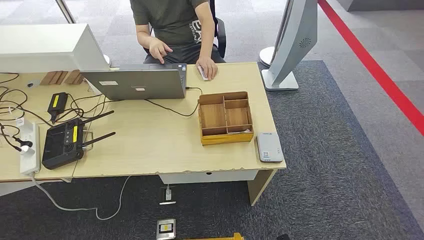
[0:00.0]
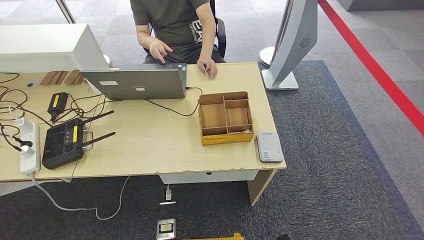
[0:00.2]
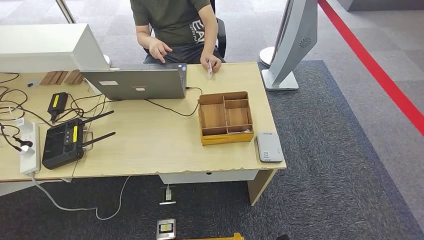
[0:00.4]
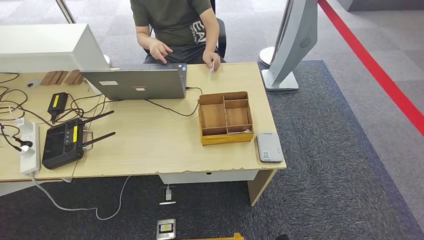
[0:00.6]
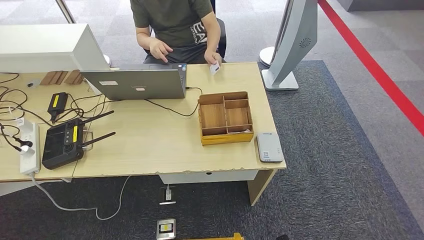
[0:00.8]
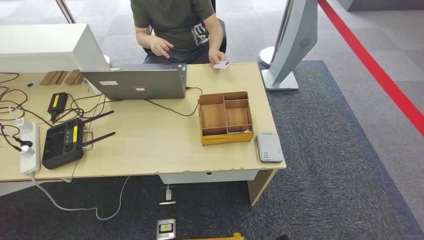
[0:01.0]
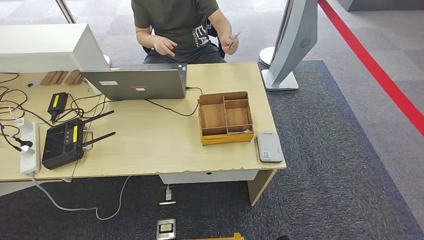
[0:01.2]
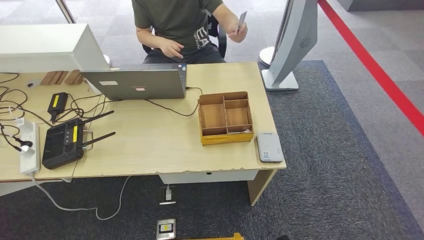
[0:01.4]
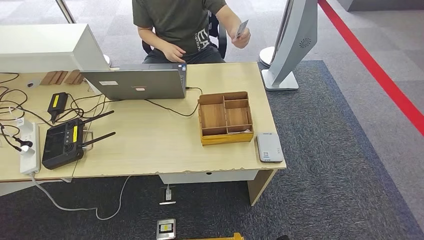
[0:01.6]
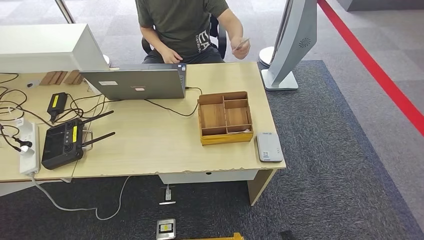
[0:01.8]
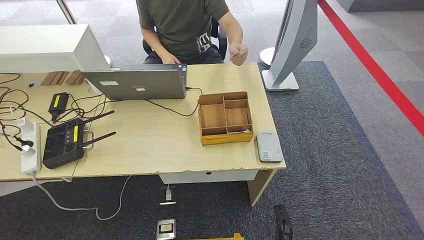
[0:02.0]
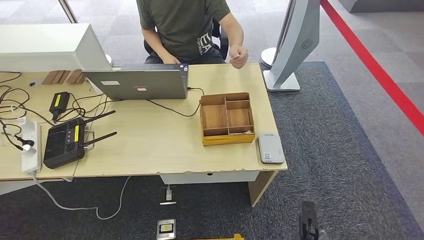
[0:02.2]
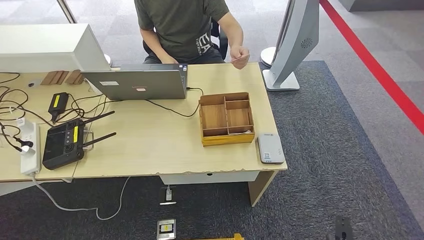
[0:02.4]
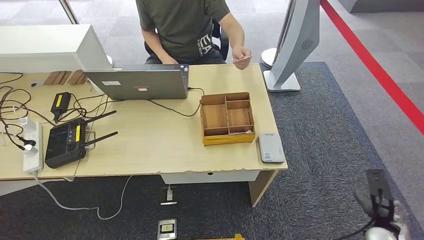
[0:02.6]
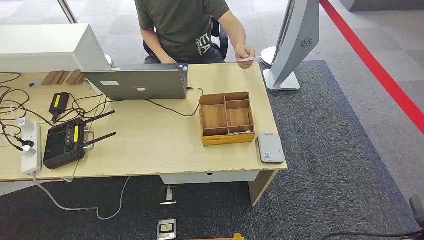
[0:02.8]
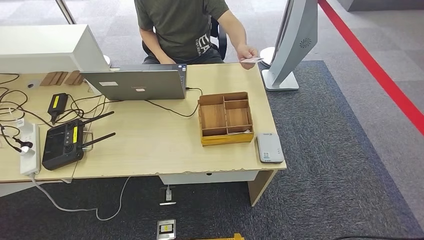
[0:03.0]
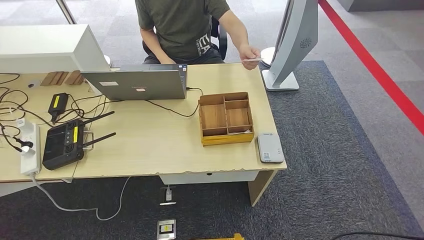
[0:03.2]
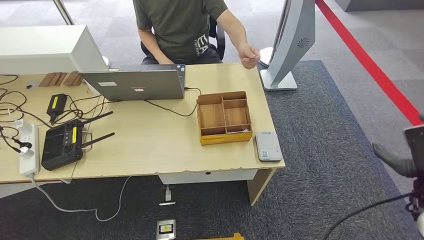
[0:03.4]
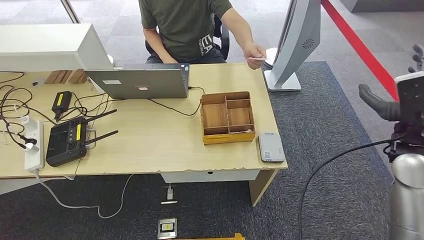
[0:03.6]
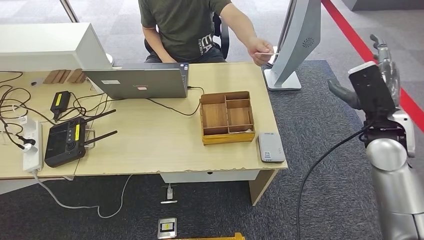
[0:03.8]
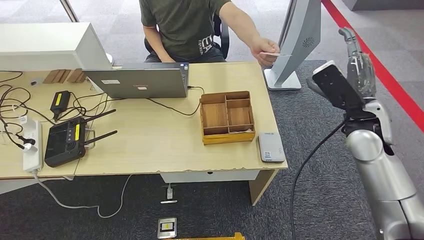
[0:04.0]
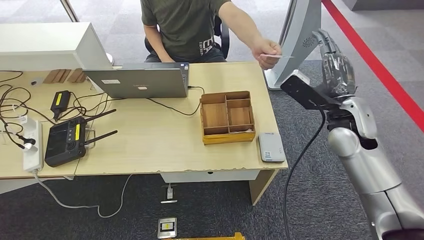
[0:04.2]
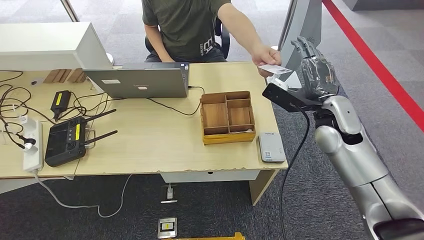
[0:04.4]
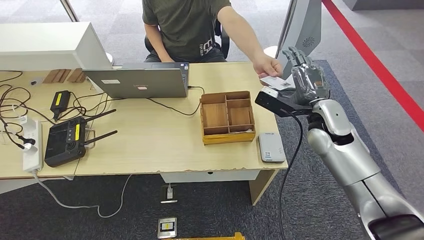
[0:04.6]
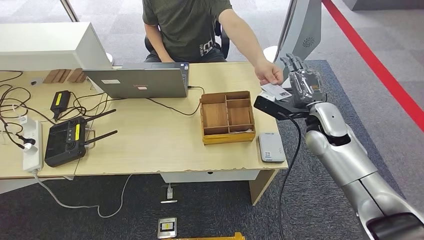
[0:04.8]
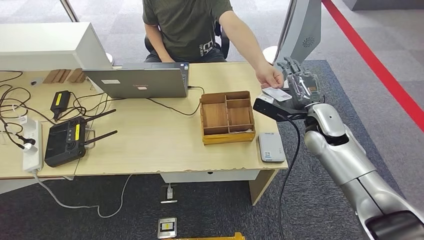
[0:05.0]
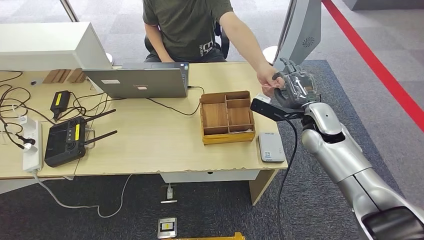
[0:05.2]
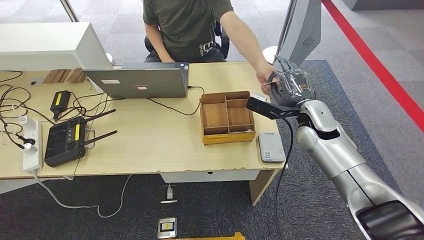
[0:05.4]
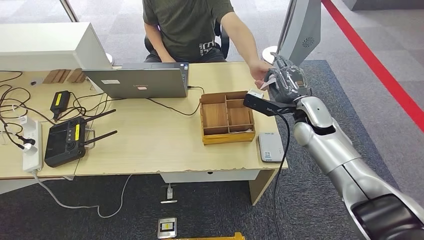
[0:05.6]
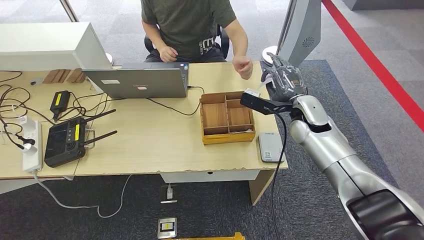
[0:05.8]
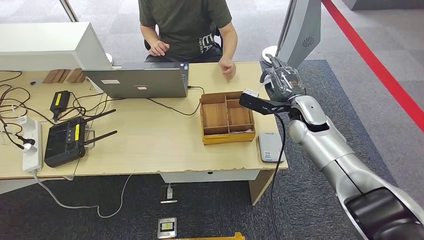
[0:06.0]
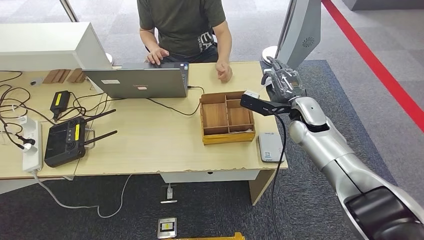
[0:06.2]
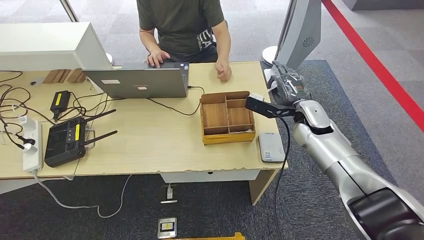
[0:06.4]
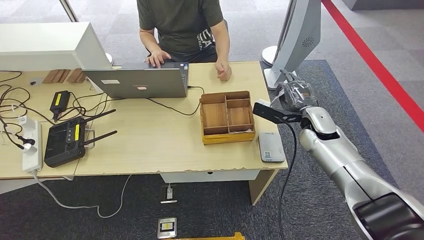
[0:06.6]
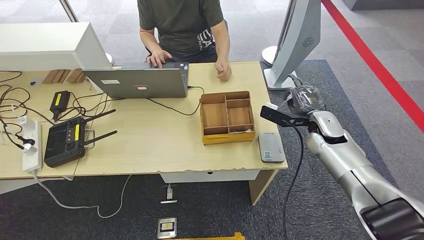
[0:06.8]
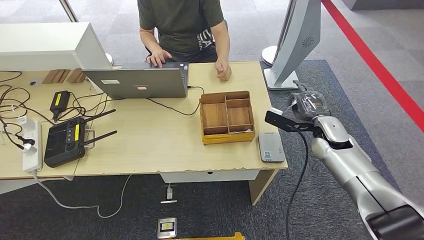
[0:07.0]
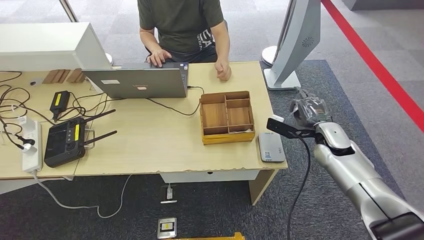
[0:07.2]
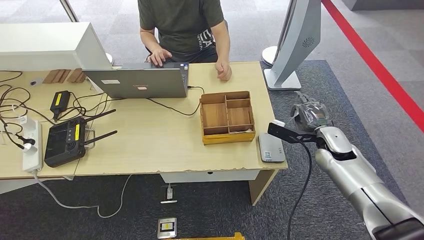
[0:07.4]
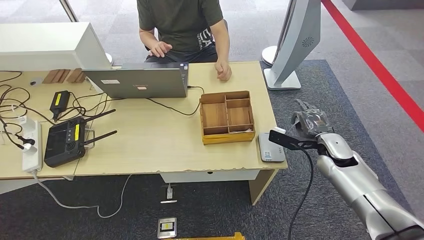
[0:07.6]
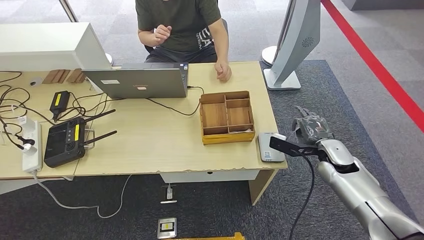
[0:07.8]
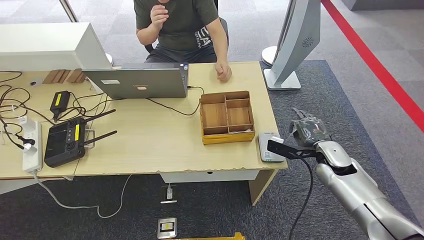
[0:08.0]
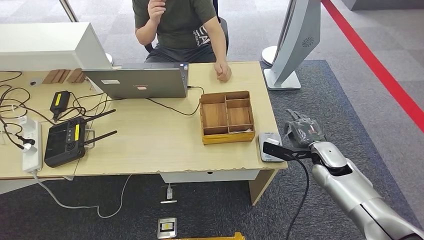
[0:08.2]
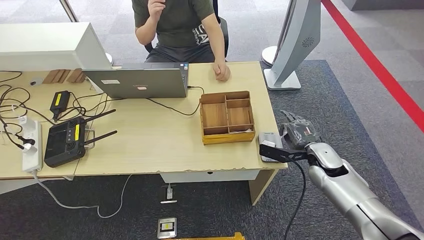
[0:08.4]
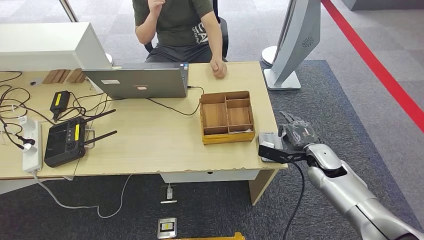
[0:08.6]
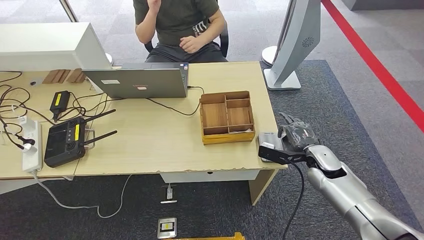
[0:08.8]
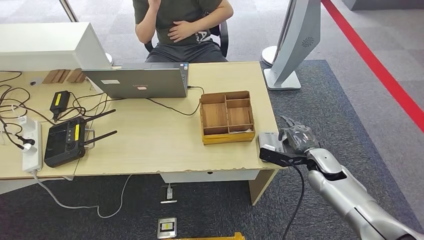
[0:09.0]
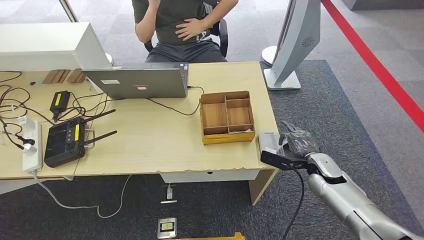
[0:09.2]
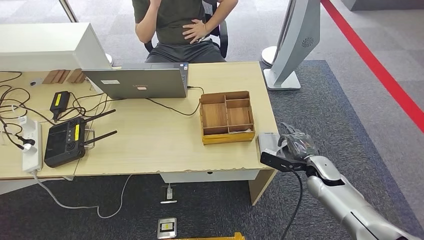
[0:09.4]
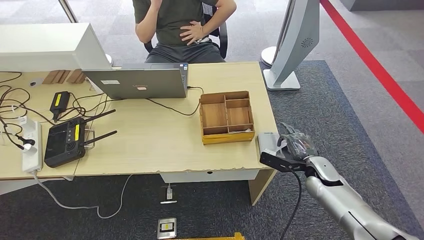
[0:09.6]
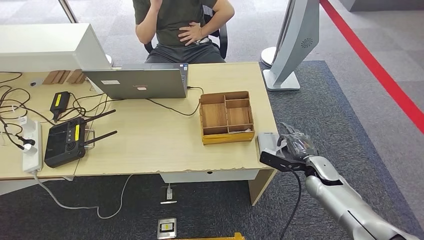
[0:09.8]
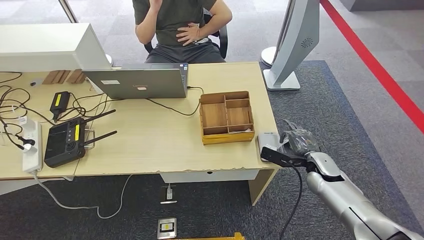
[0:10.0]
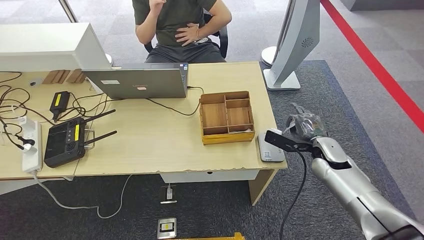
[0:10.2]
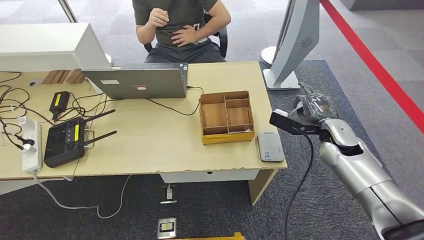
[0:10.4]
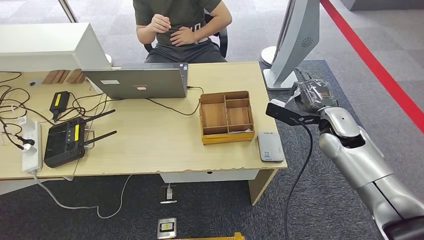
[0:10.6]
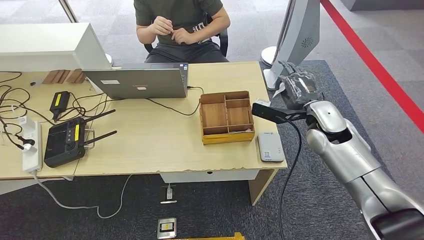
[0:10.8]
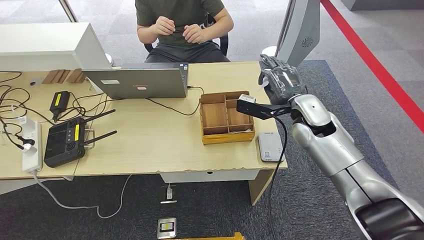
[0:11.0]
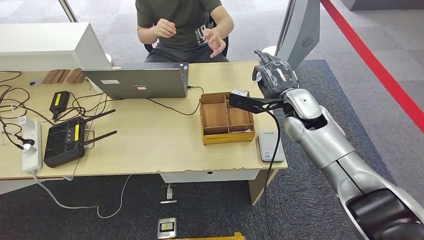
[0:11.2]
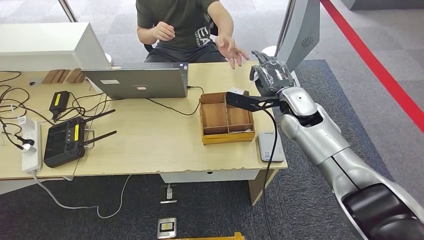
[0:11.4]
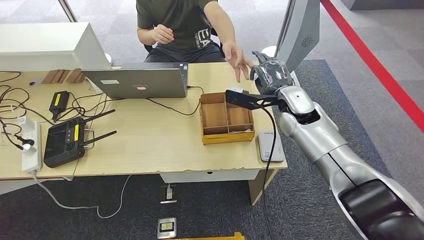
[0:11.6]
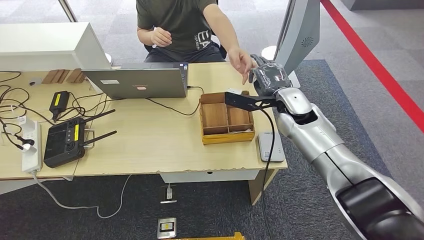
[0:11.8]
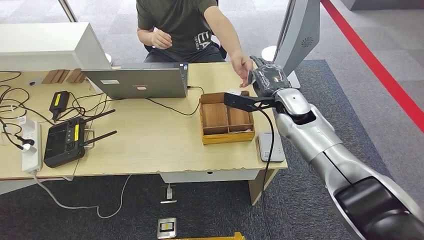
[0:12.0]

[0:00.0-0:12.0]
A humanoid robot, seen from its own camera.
Step, 0.0 to 5.4 s: Take the ID card from the person's hand.
Step, 5.8 to 9.8 s: Place the ID card on the card reader.
1.6 to 3.0 s: The right hand travels upward and to the right by some 30 cm.
4.4 to 6.0 s: The right hand heads forward, covering approximately 5 cm.
6.0 to 7.6 s: The right hand heads to the right, downward and backward, covering approximately 15 cm.
7.6 to 9.0 s: The right hand moves roughly 5 cm.
9.0 to 10.4 s: The right hand heads upward, covering roughly 10 cm.
10.4 to 12.0 s: The right hand travels to the left, forward and upward by about 15 cm.

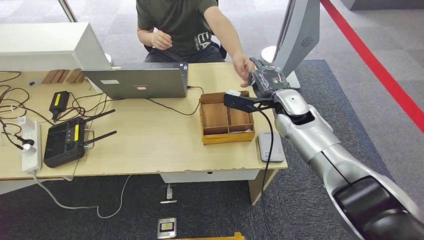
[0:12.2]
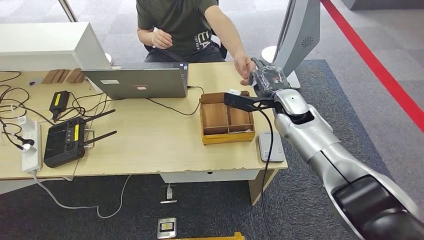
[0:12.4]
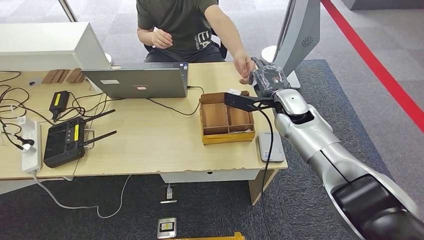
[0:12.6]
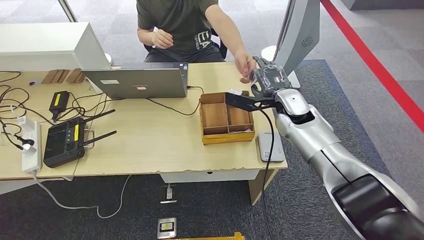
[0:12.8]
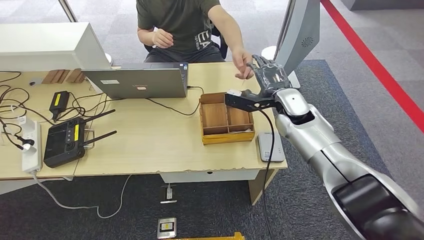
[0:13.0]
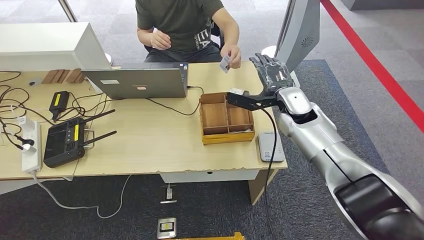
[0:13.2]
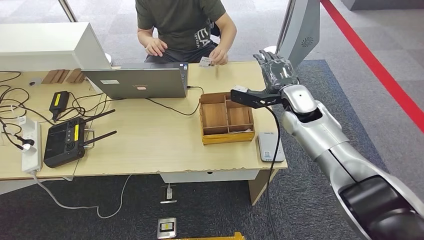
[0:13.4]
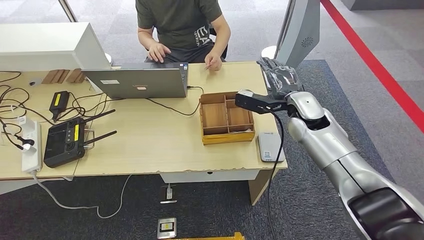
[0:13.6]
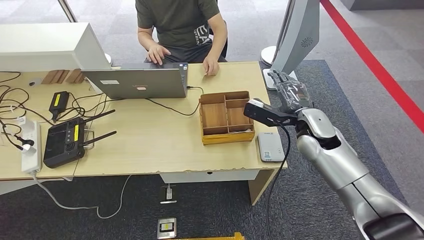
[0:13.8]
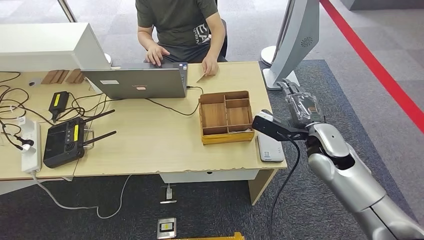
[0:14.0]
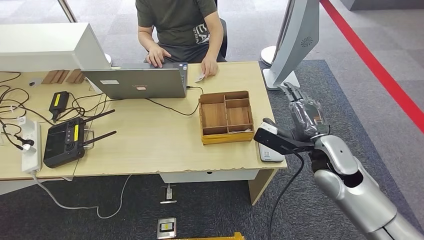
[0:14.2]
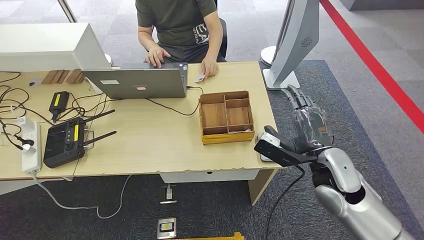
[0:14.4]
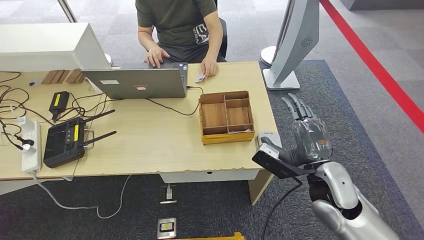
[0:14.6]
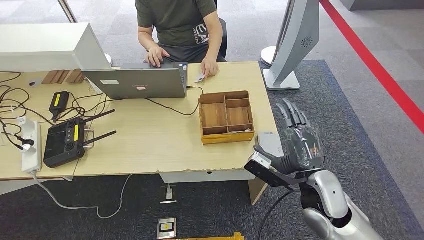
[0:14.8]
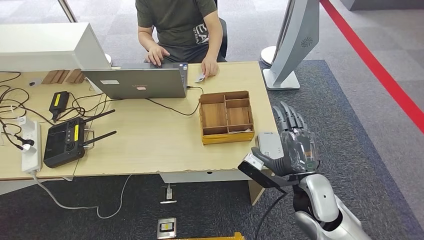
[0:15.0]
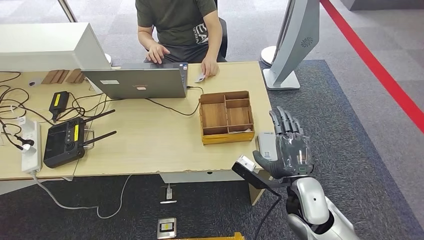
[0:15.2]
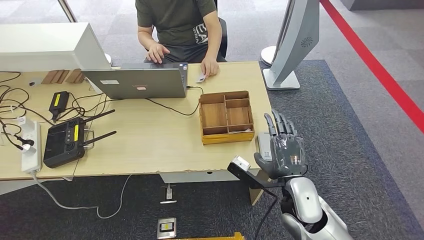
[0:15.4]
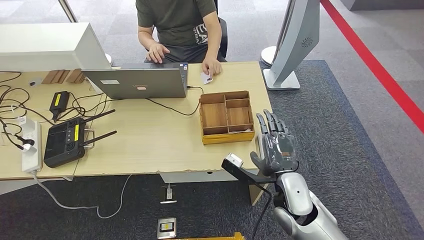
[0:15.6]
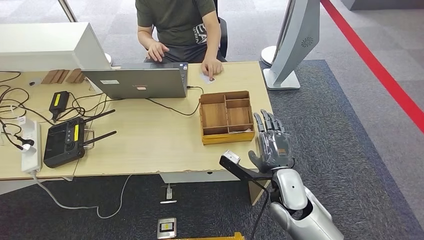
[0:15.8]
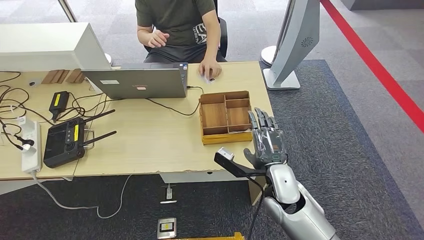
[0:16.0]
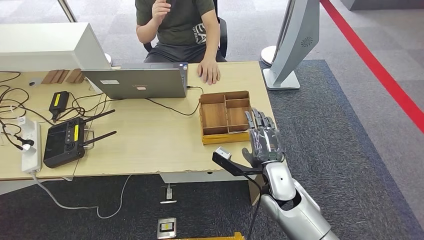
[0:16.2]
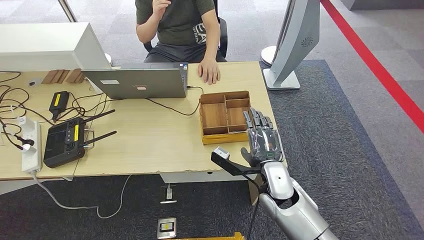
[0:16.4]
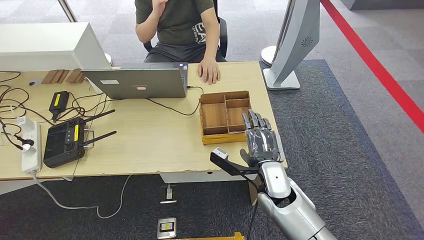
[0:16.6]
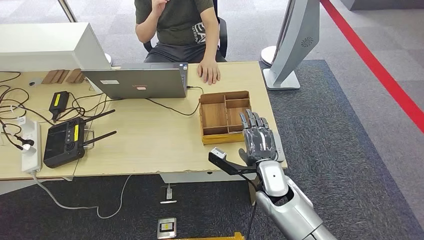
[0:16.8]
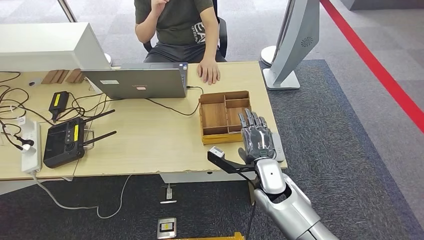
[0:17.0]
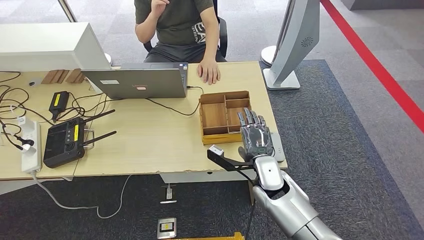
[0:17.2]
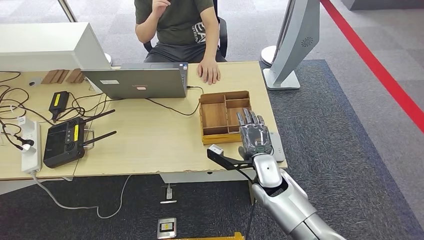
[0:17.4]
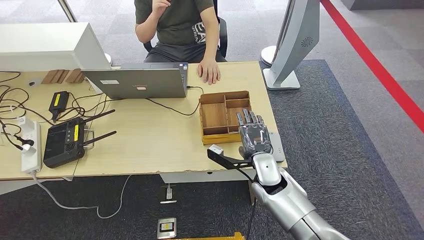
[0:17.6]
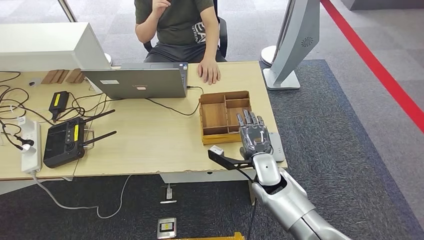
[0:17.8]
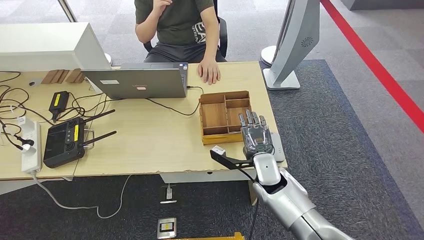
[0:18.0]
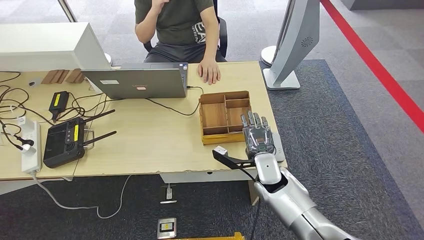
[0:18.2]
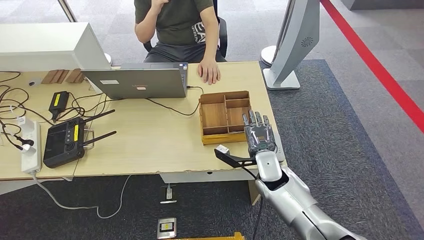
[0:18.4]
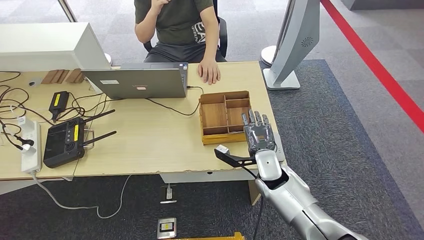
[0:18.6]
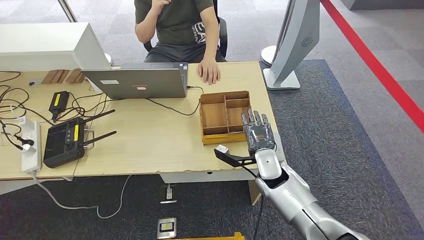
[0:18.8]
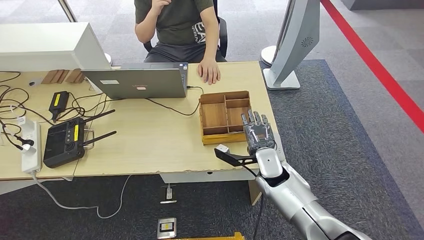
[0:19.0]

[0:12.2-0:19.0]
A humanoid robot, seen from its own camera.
12.2 to 13.6 s: The hands make only small movements.
13.6 to 15.0 s: The right hand travels backward by roughly 20 cm.
15.0 to 16.2 s: The right hand goes roughly 10 cm to the left and forward.
16.2 to 17.6 s: The hands stay close to where they were, moving slightly.
17.6 to 19.0 s: The hands move only a little.
